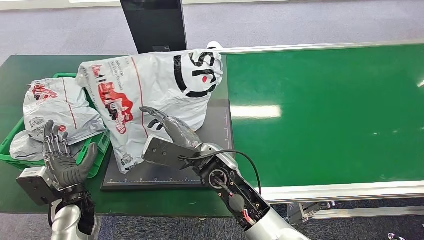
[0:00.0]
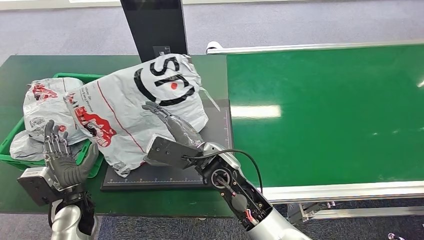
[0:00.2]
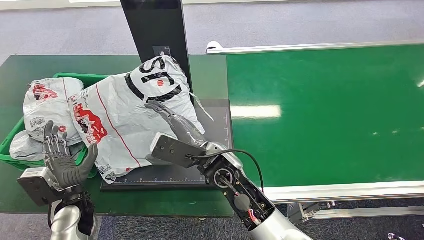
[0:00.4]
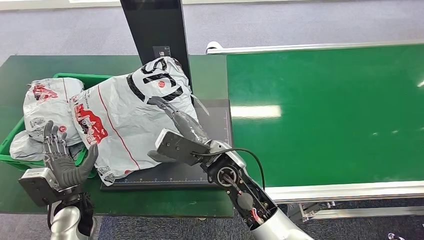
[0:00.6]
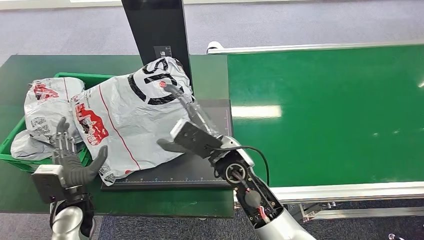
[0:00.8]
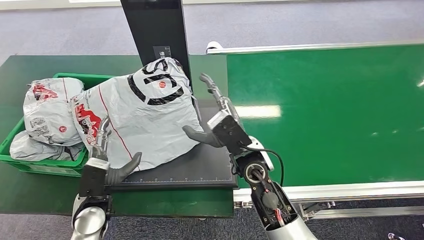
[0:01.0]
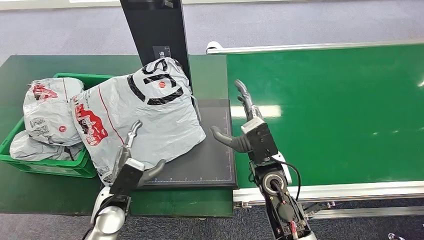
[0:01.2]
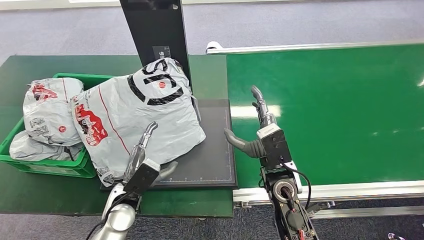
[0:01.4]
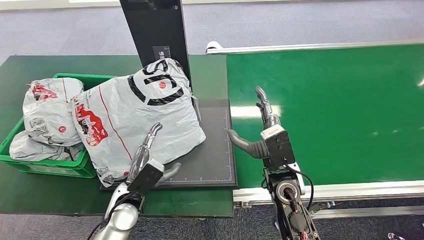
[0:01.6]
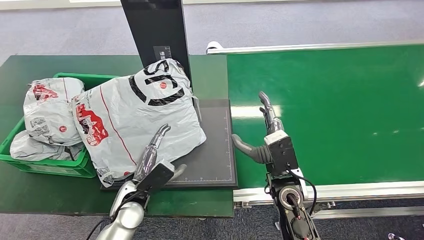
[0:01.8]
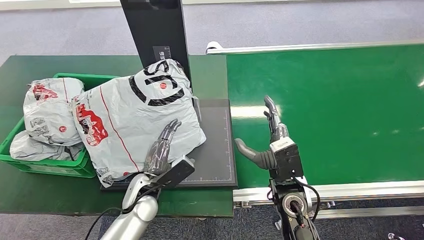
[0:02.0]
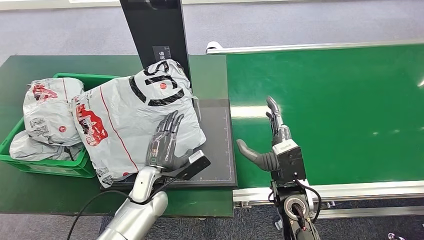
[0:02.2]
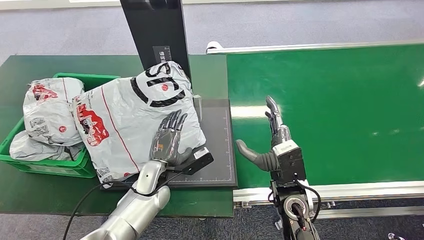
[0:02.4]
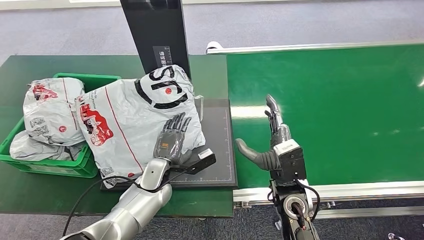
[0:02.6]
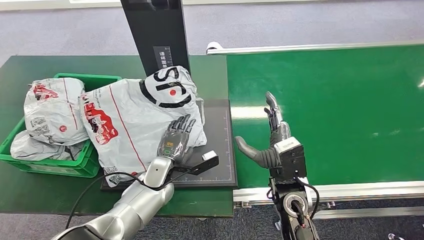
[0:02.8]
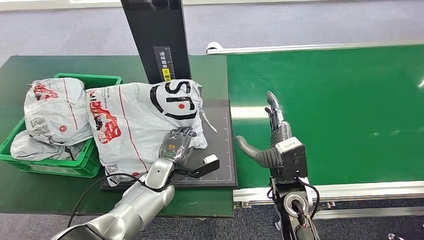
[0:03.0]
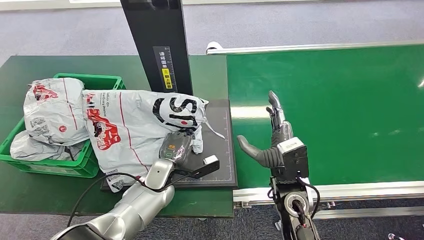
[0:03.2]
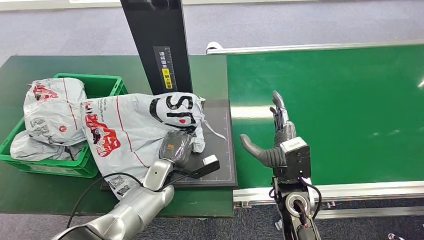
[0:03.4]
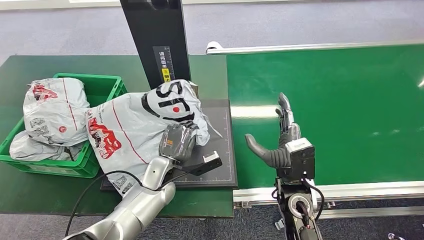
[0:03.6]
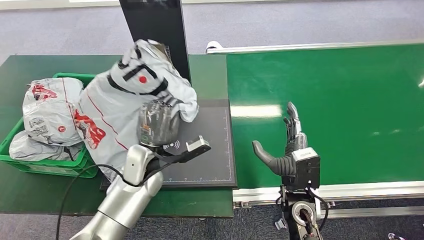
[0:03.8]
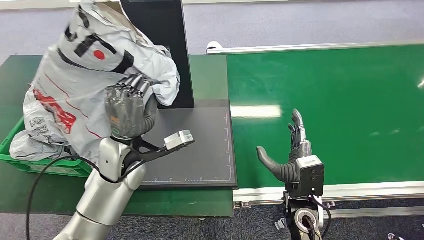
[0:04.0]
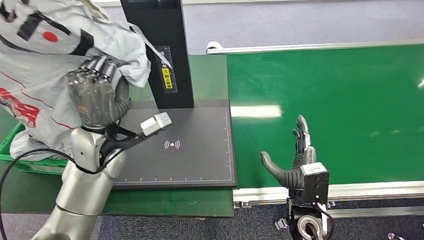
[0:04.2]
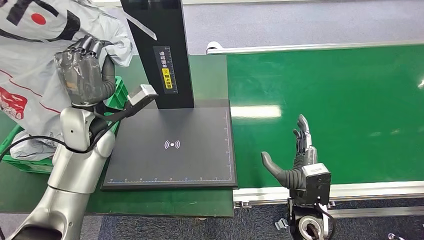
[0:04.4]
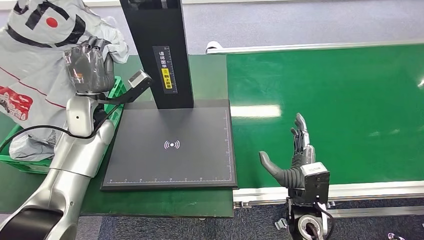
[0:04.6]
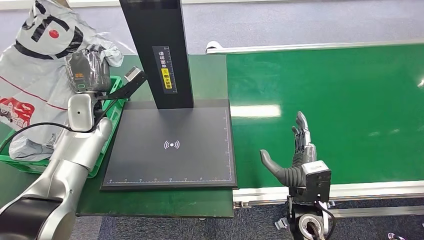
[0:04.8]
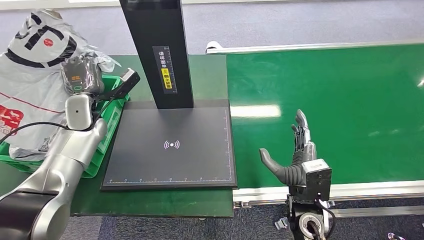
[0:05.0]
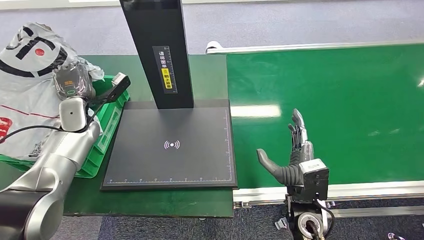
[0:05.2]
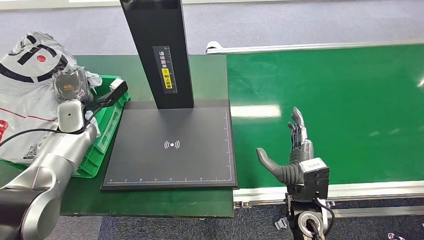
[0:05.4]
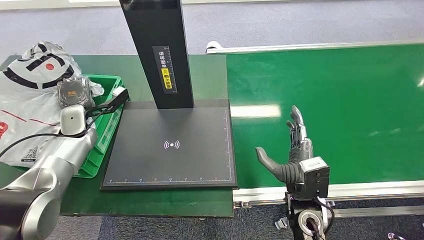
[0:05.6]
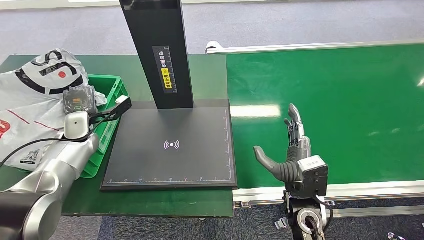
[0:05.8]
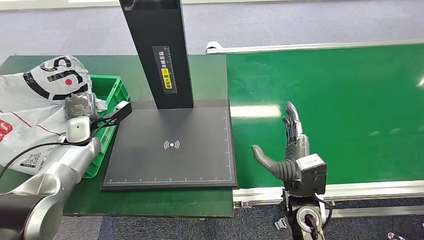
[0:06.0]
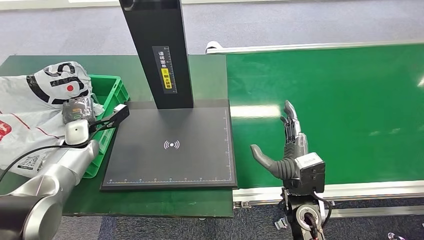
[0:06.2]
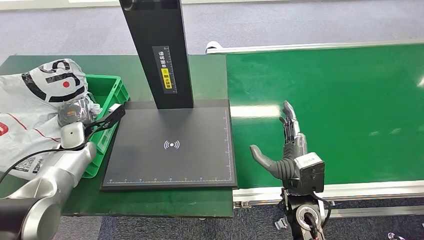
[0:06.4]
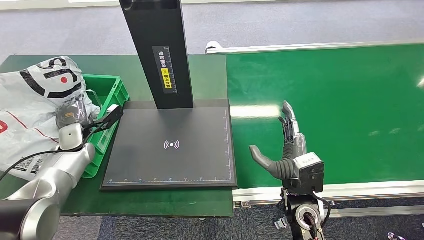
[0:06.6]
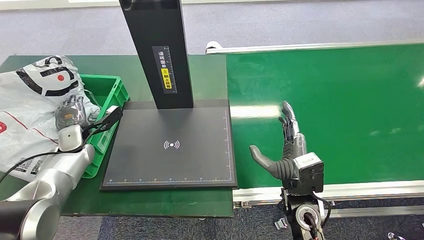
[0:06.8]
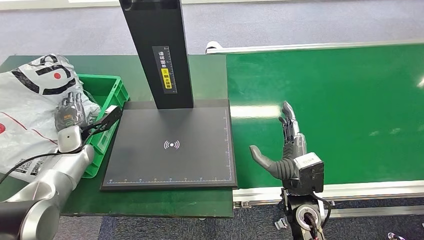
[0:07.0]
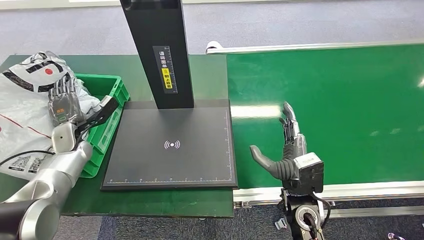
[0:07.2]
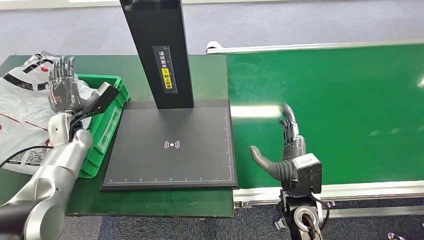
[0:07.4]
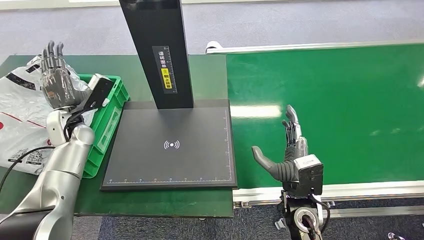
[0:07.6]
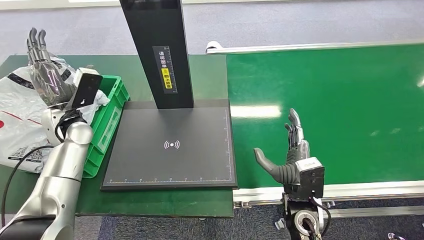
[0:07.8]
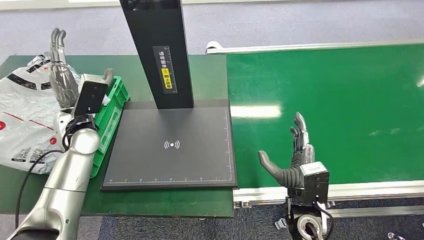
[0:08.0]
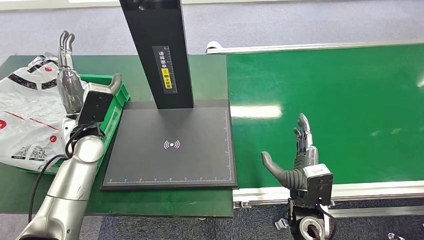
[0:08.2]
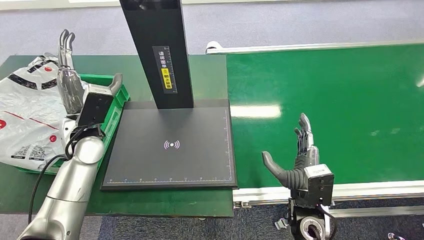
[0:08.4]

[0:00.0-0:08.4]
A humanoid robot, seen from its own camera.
Step, 0:00.0 to 0:01.6: Place the package onto the inbound machine.
Step, 0:01.8 to 0:04.6: Pick up the package from the inbound machine.
Step, 0:04.8 to 0:08.4: Place the package into the parcel locker.
0:01.4 to 0:02.8: The left hand goes about 10 cm forward and to the right.
0:05.6 to 0:07.0: The left hand heads downward, covering approximately 5 cm.
0:07.0 to 0:08.4: The left hand heads upward and to the right, covering approximately 15 cm.
